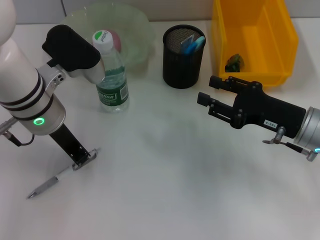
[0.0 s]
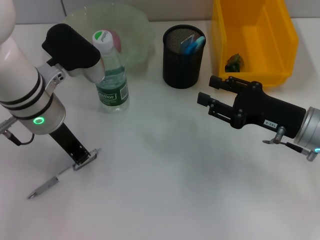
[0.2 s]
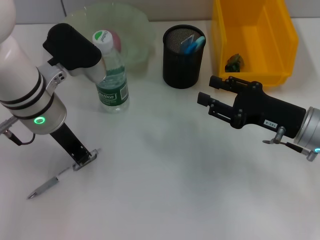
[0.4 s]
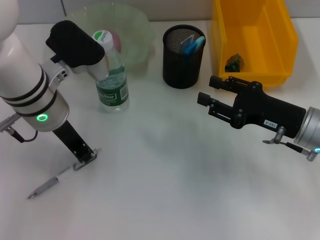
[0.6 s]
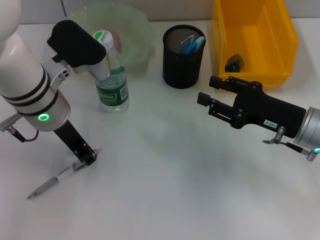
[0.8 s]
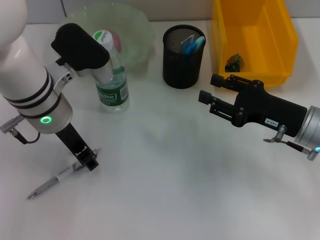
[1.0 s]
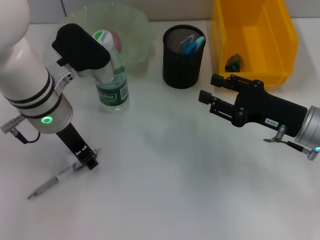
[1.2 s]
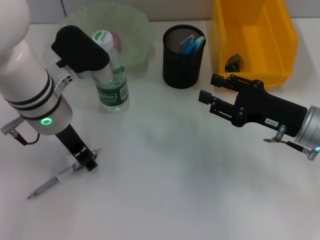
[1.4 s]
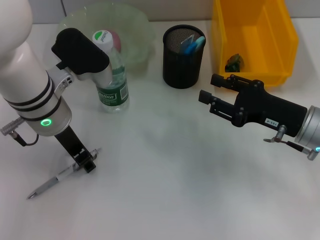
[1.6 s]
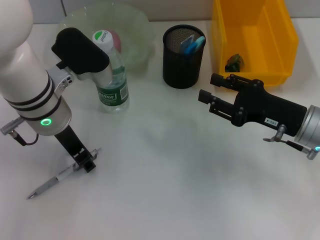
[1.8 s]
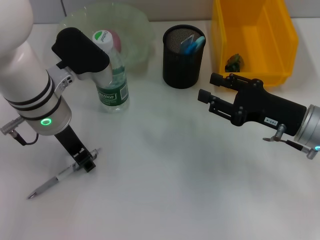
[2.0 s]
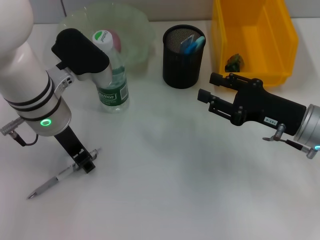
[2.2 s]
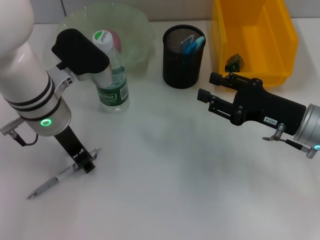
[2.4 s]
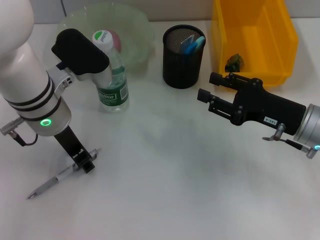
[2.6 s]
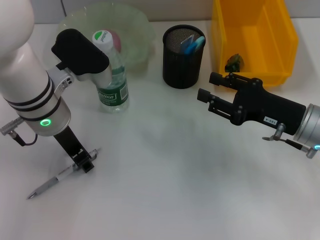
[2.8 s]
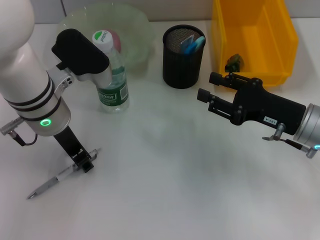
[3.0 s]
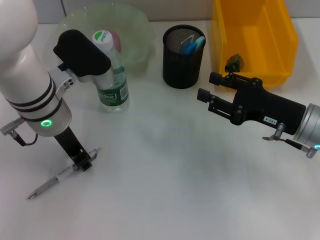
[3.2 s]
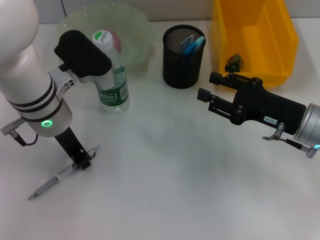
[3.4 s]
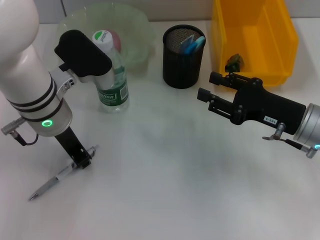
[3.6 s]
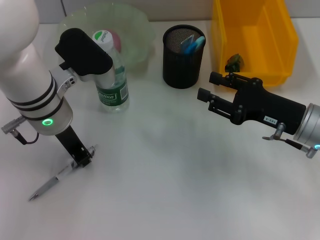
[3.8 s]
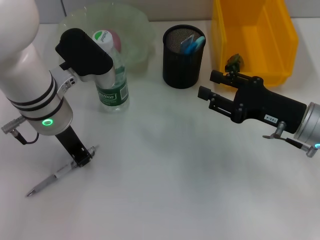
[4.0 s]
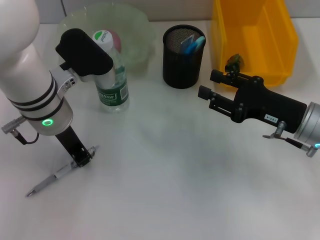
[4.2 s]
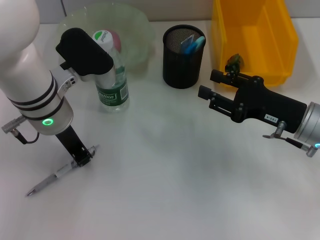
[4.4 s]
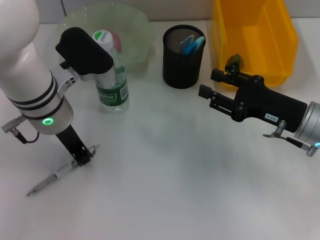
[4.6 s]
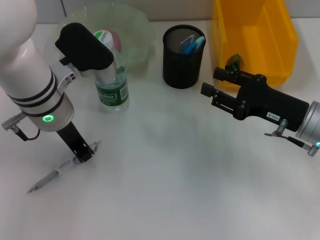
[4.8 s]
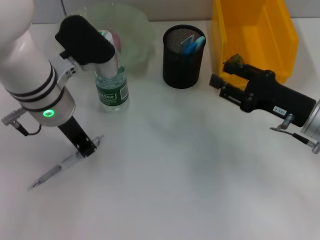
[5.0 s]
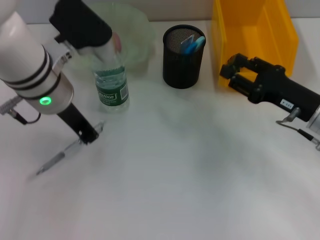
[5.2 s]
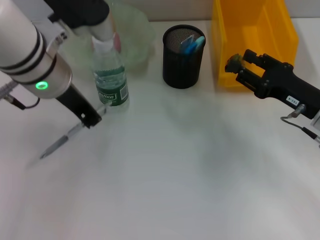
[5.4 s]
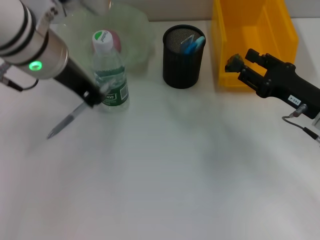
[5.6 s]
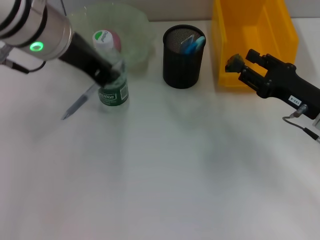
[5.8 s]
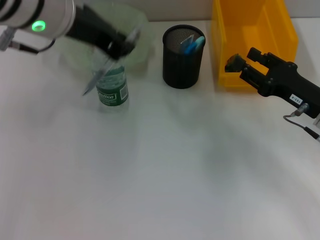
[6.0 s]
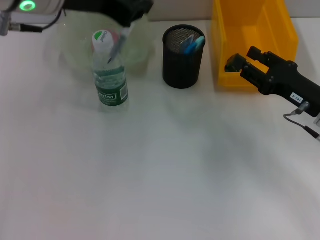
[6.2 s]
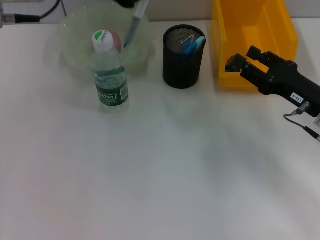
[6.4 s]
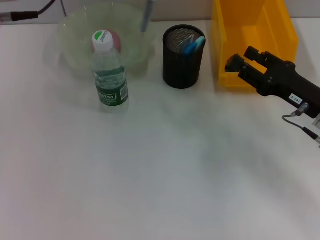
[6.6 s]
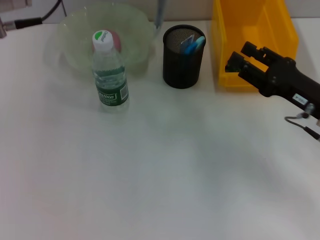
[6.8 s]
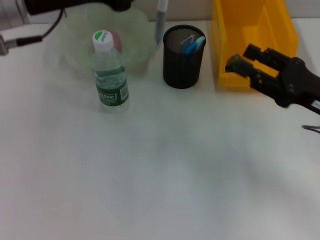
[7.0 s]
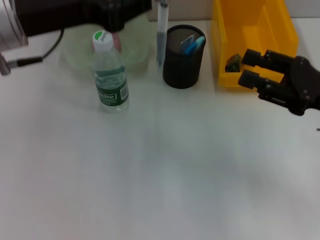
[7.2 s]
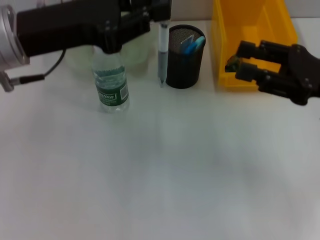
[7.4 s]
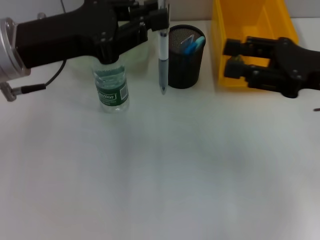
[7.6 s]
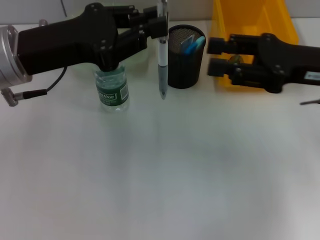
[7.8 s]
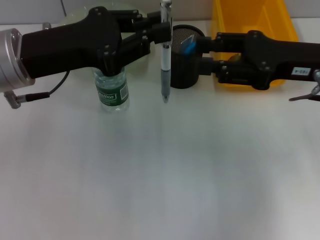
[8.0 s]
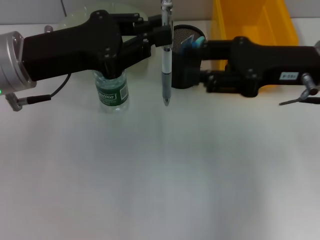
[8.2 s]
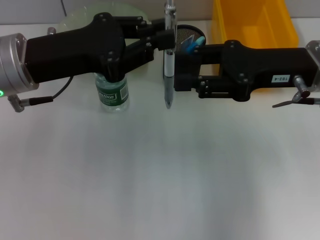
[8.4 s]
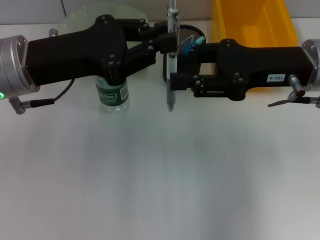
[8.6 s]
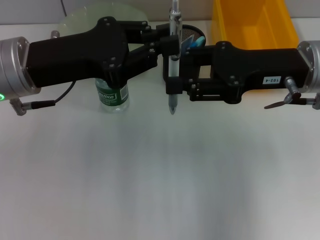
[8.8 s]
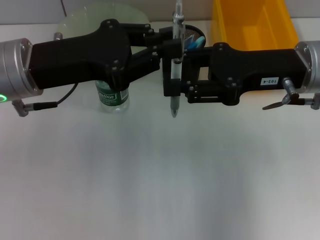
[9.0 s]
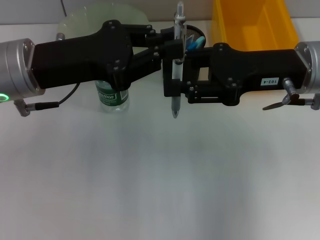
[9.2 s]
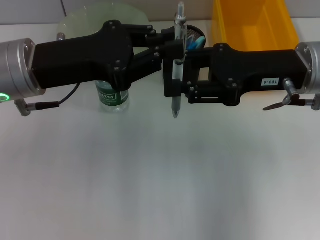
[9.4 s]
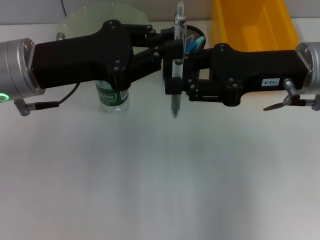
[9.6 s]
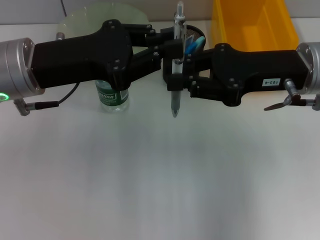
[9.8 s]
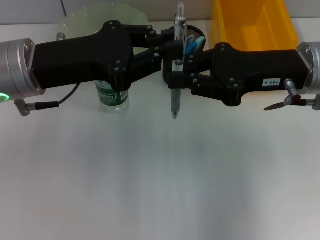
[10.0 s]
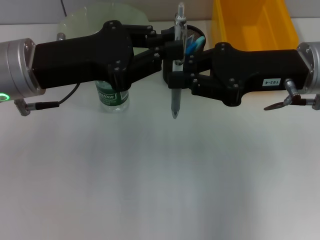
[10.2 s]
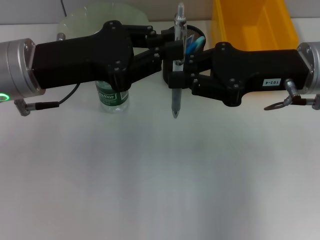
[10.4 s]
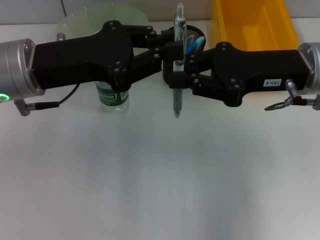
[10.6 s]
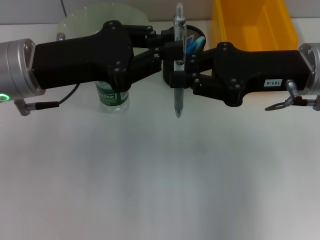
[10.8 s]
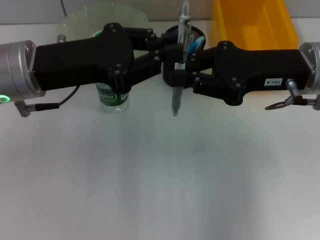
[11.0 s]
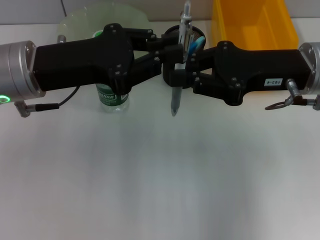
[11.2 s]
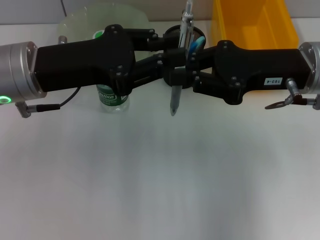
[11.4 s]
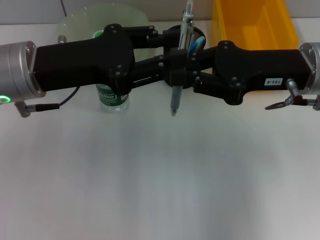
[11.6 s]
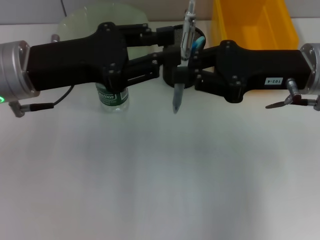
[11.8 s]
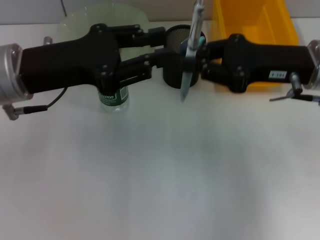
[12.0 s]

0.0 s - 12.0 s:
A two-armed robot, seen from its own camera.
Step, 0.0 s - 4.6 s: Grab the gray spring-action pen with the left hand.
Step, 4.8 s - 11.4 s: Pass the gray spring-action pen from the left hand to the right hand.
0.0 s - 1.6 s: The left gripper opens.
1.6 s - 3.0 s: The two grippers keep their place.
3.0 s - 4.4 s: The left gripper closes.
4.4 s - 6.0 s: The left gripper goes roughly 15 cm upward.
6.0 s - 7.6 s: The right gripper moves upward, roughly 10 cm. Meanwhile the left gripper moves to the left and downward, roughly 10 cm.
7.6 s - 9.0 s: The right gripper moves to the left, approximately 5 cm.
9.0 s - 10.4 s: The right gripper closes.
10.4 s - 12.0 s: The grippers move only a little.

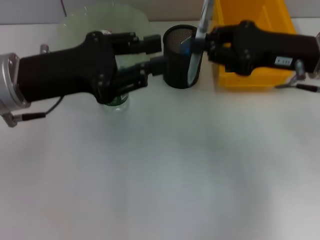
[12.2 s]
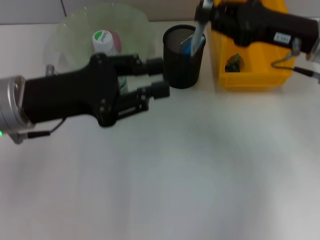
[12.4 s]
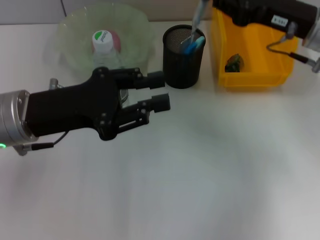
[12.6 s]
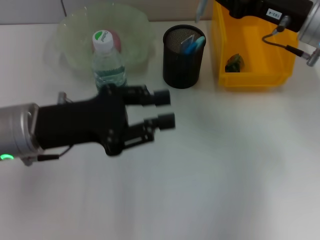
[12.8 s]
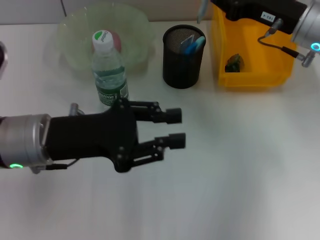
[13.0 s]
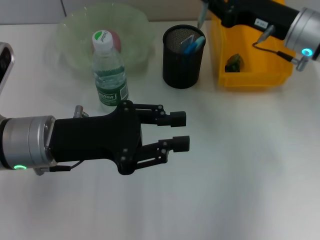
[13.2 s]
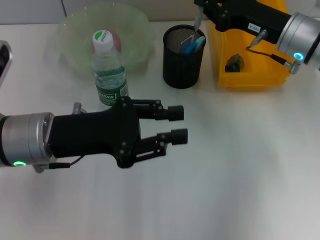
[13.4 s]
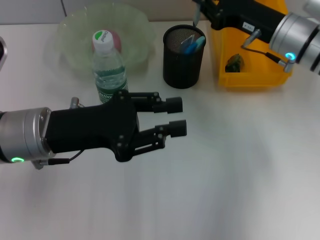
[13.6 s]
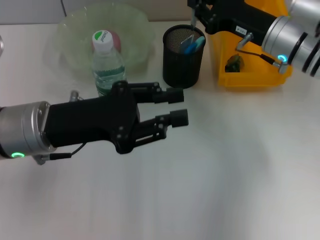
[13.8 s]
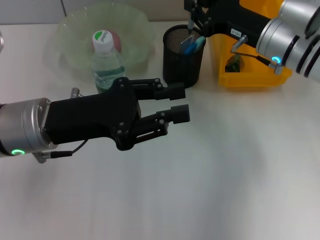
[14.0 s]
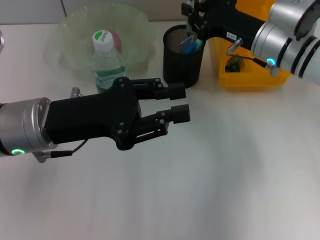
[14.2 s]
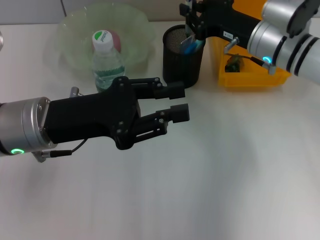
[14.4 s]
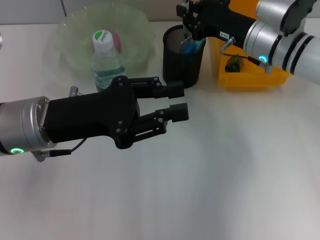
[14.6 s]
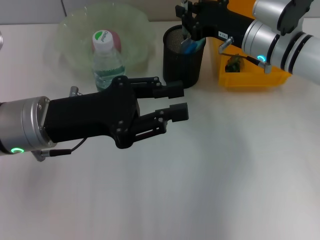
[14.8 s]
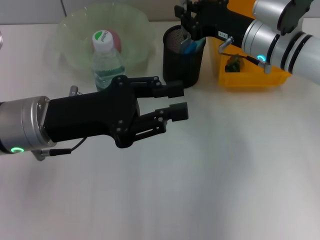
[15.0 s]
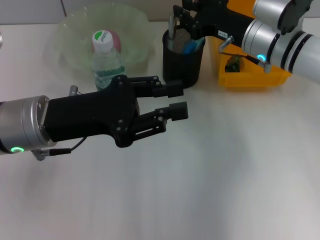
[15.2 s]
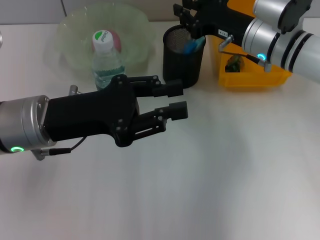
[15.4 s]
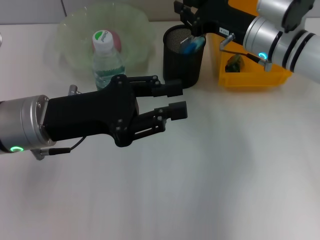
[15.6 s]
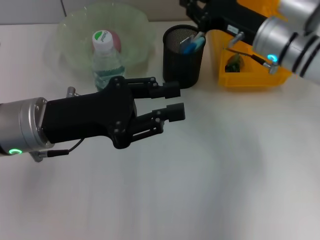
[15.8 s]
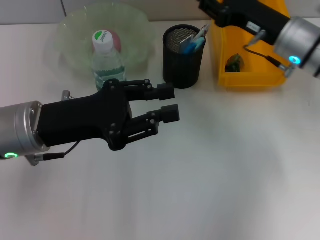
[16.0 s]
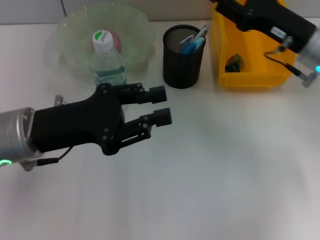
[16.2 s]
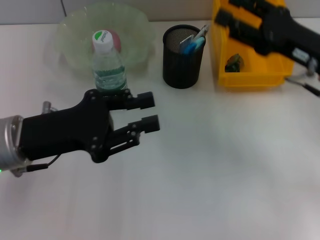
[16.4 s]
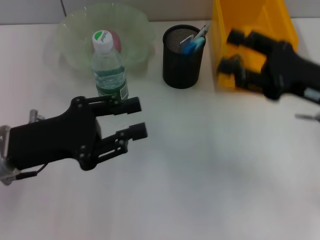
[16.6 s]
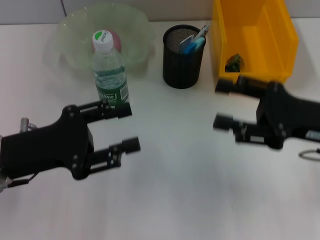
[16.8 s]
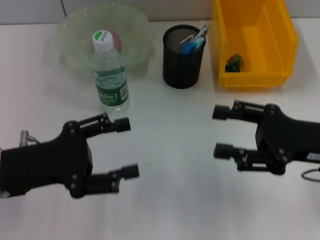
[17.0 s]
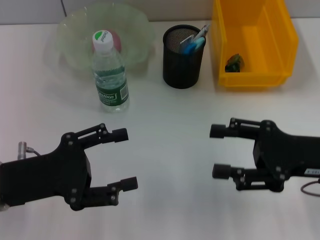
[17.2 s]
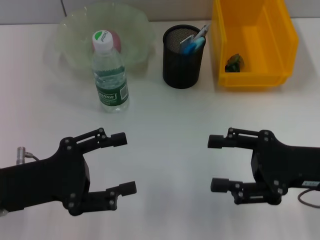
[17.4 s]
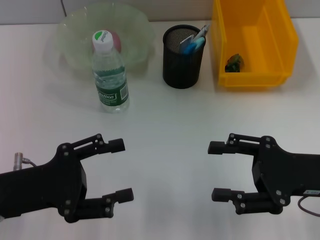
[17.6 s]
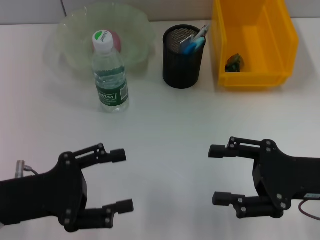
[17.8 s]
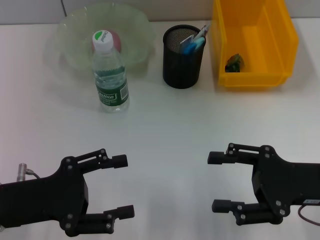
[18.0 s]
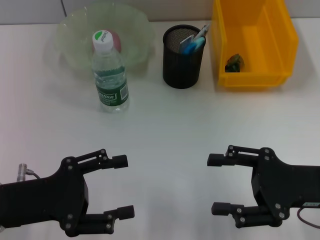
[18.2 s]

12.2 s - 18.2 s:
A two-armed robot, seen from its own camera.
Step, 12.2 s - 15.4 s: Place the gray spring-action pen into the pen holder with the right hand.
12.2 s - 13.8 s: The left gripper travels downward by about 5 cm; the right gripper heads forward, covering roughly 5 cm.
13.8 s - 15.2 s: The grippers make only small movements.
15.2 s - 16.6 s: The left gripper changes place by some 5 cm, while the right gripper shifts about 15 cm backward and to the right, and opens up.
16.6 s - 18.2 s: The left gripper moves some 5 cm, and opens, while the right gripper moves backward, about 5 cm.

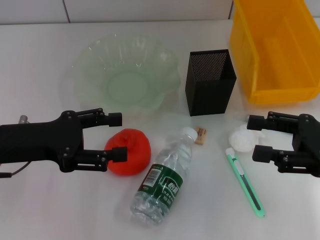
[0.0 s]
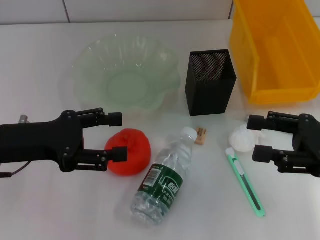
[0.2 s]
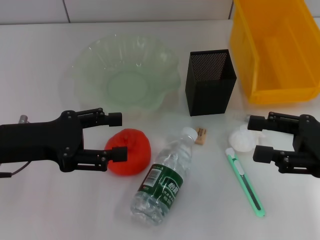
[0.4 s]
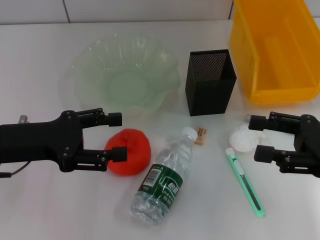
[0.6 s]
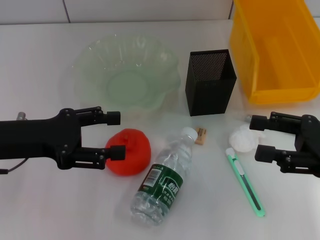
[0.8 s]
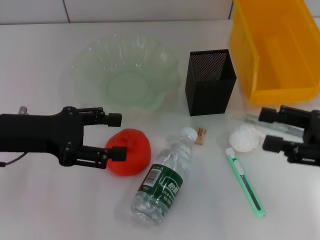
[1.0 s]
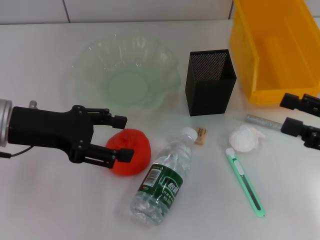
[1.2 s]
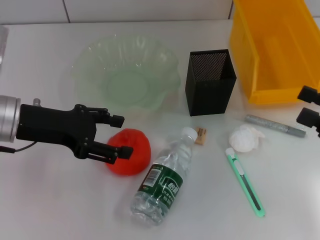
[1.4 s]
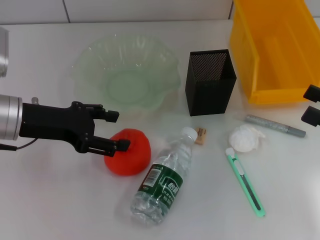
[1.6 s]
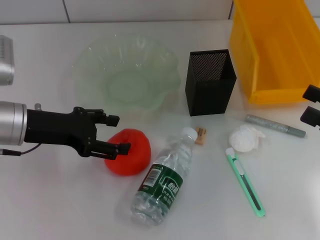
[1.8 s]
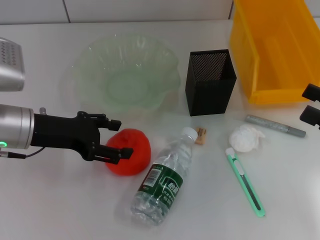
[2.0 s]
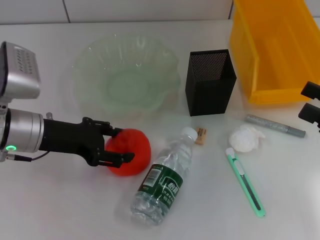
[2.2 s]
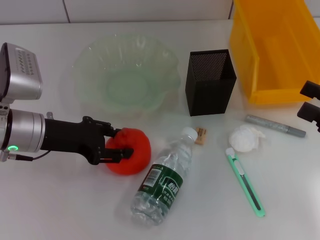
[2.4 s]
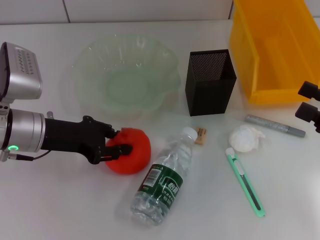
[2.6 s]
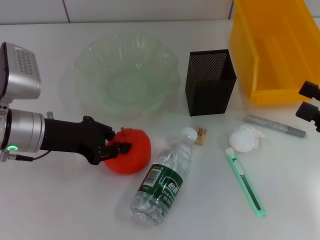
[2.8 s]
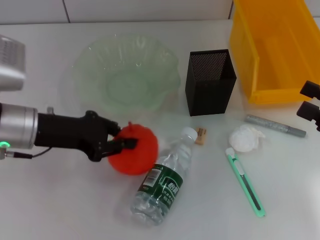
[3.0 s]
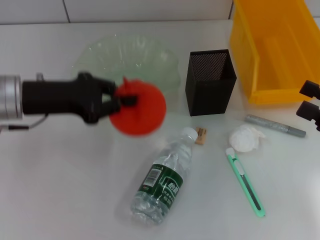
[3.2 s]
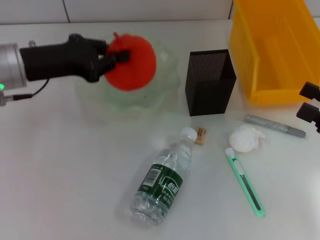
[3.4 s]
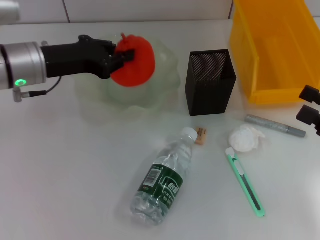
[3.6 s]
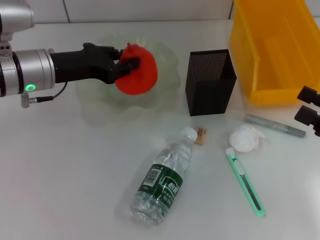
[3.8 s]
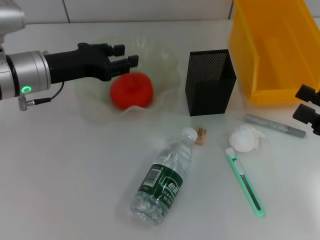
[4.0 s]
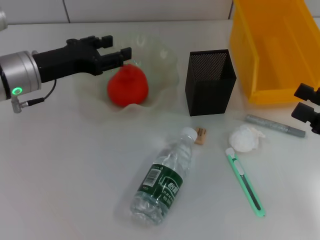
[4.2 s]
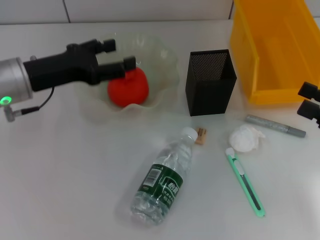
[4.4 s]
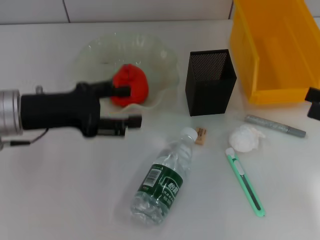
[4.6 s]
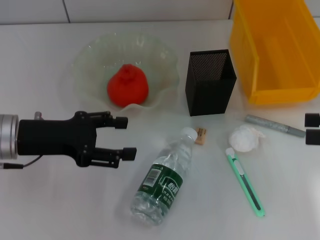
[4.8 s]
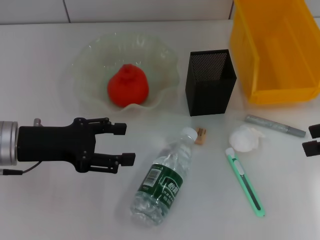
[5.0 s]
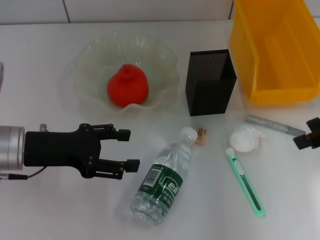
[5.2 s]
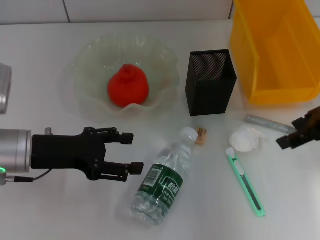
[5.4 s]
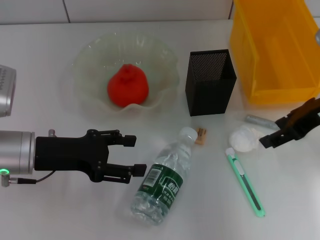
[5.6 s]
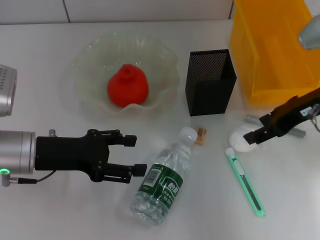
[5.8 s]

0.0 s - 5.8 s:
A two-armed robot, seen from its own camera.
Step, 0.0 s - 2.6 s: Grab the orange with the left hand.
Step, 2.8 s - 4.0 s: Place the orange into the fruit bowl with the left hand.
1.4 s - 2.8 s: The left gripper closes.
2.8 s - 4.4 s: The left gripper opens its fingers.
4.4 s - 5.8 s: The right gripper goes some 15 cm forward, to the left and upward, while the left gripper is displaced backward by approximately 5 cm, and opens up.
